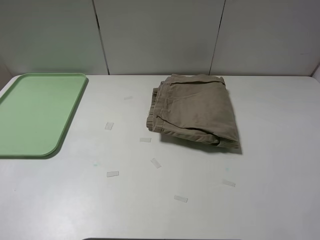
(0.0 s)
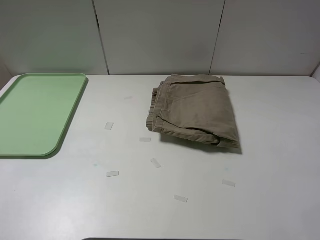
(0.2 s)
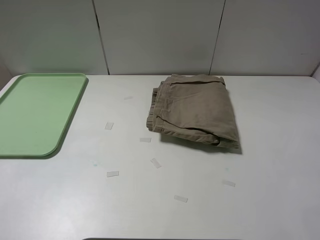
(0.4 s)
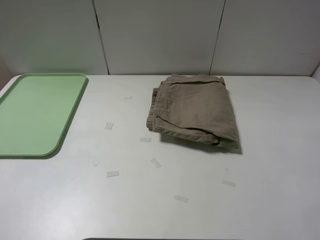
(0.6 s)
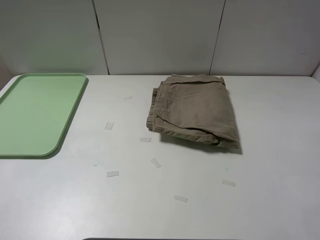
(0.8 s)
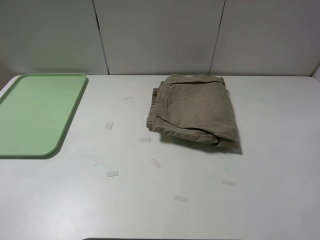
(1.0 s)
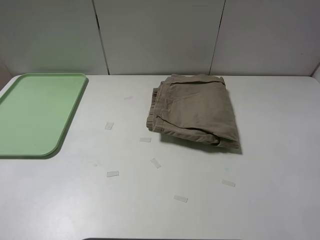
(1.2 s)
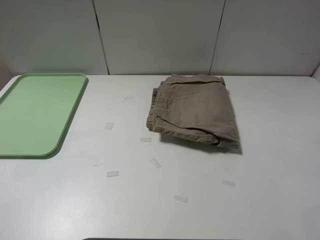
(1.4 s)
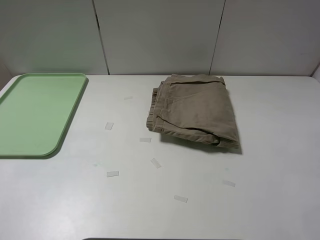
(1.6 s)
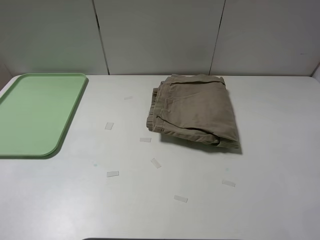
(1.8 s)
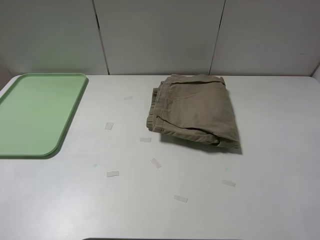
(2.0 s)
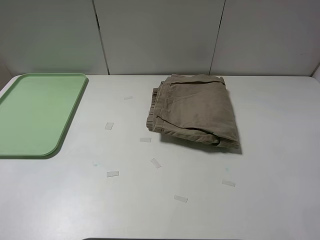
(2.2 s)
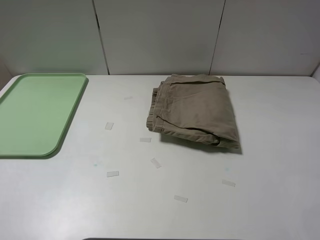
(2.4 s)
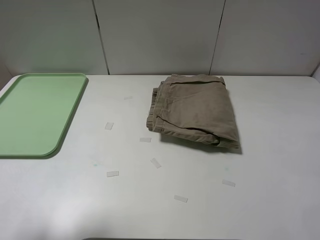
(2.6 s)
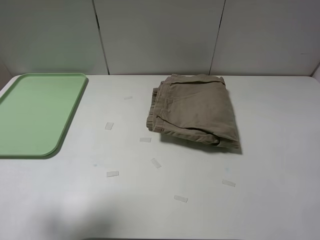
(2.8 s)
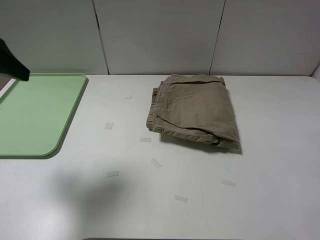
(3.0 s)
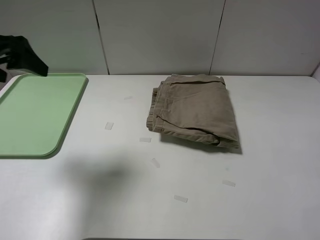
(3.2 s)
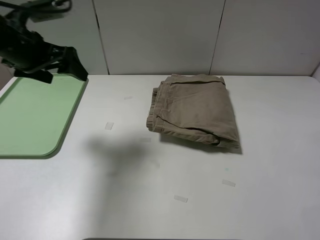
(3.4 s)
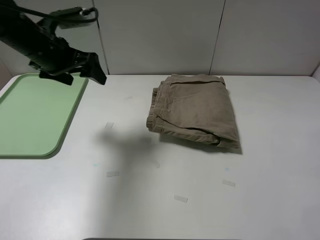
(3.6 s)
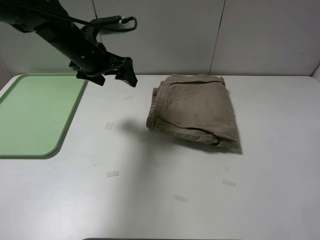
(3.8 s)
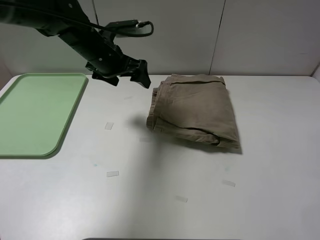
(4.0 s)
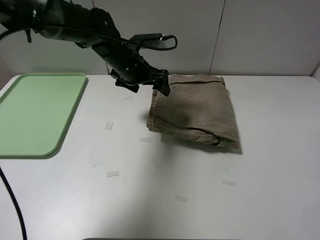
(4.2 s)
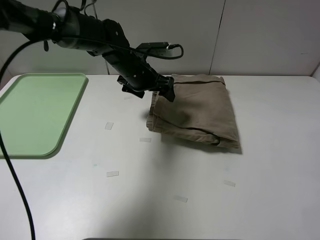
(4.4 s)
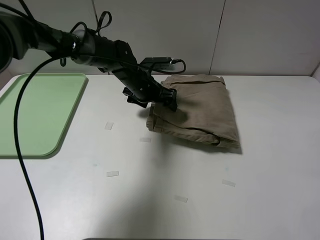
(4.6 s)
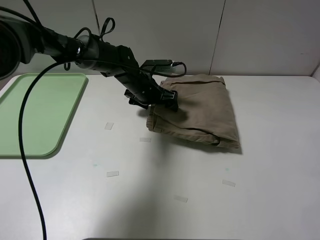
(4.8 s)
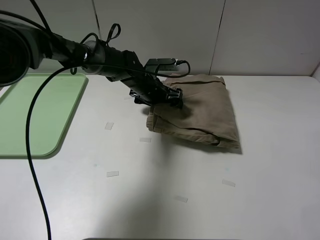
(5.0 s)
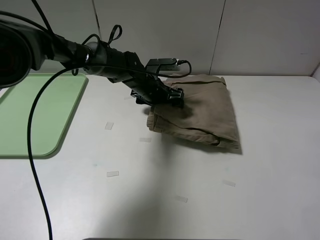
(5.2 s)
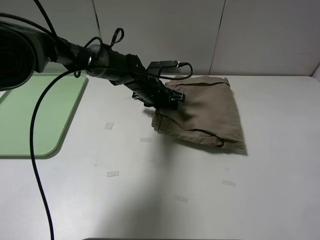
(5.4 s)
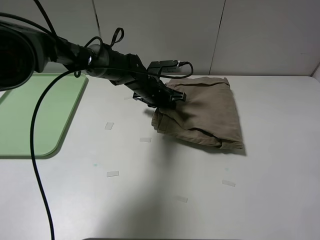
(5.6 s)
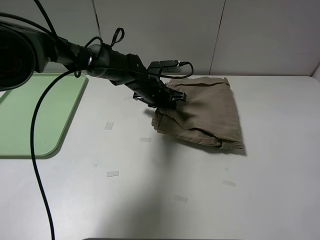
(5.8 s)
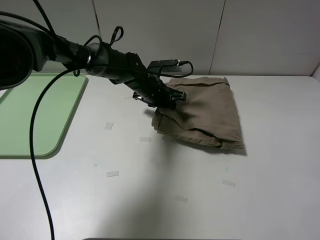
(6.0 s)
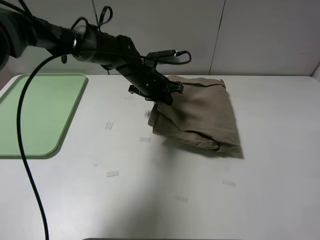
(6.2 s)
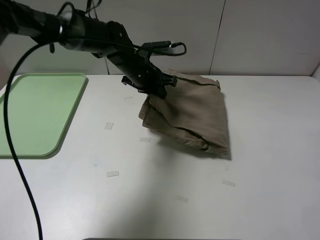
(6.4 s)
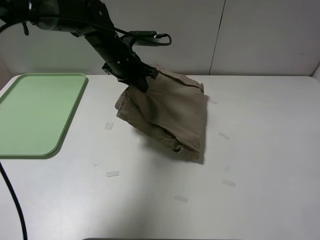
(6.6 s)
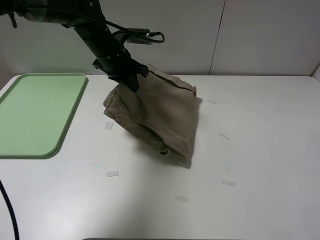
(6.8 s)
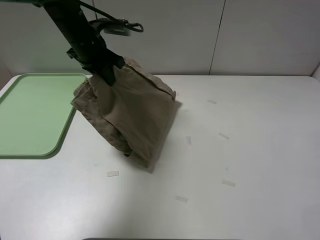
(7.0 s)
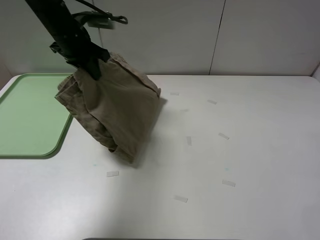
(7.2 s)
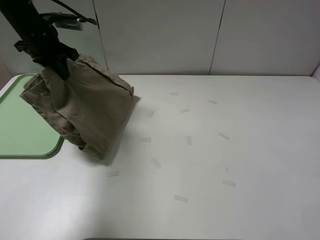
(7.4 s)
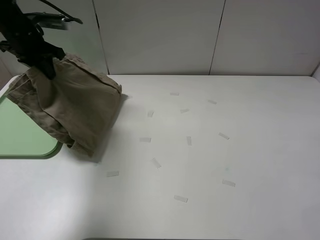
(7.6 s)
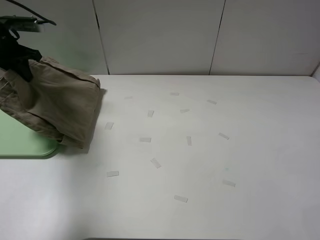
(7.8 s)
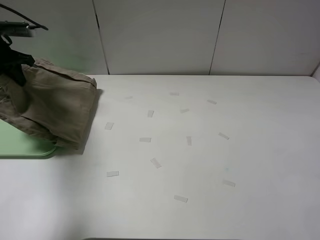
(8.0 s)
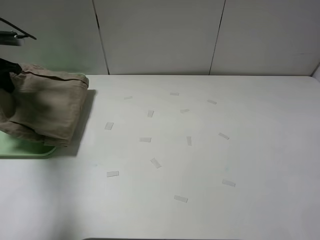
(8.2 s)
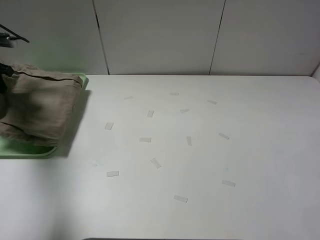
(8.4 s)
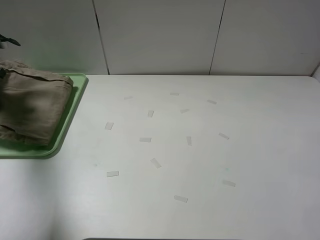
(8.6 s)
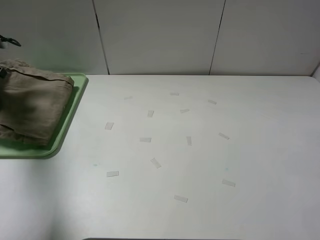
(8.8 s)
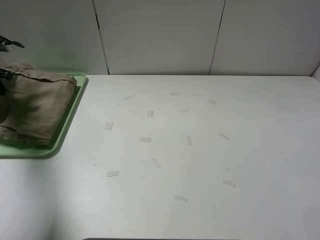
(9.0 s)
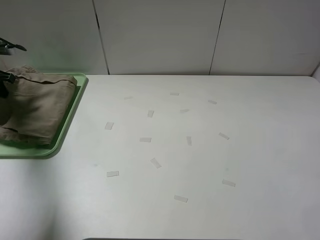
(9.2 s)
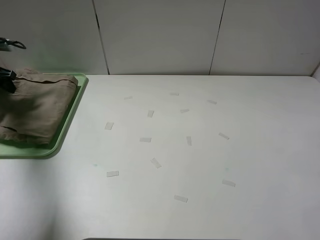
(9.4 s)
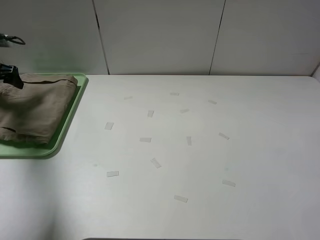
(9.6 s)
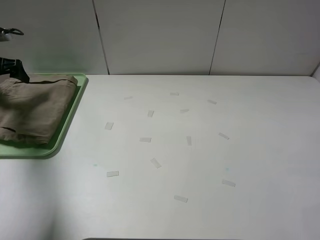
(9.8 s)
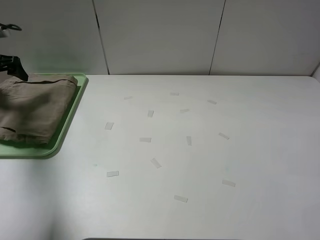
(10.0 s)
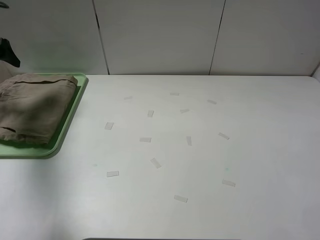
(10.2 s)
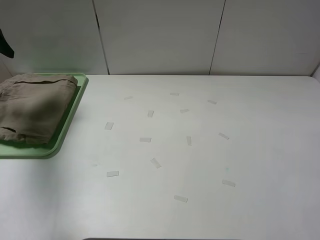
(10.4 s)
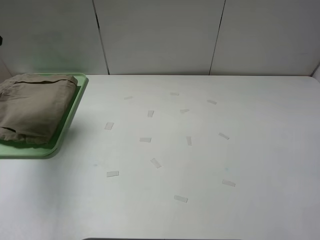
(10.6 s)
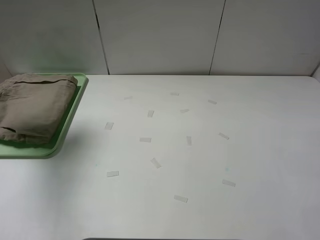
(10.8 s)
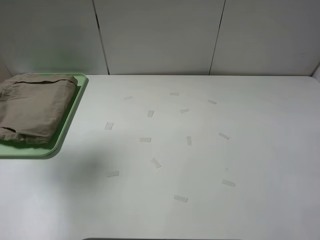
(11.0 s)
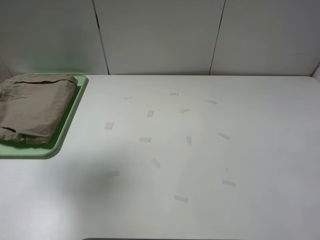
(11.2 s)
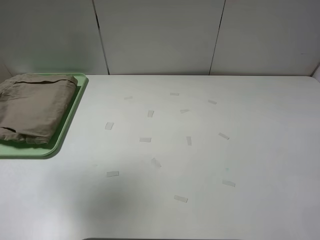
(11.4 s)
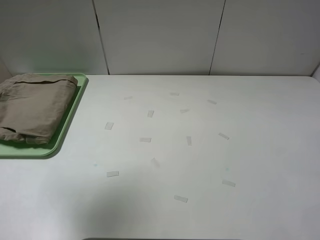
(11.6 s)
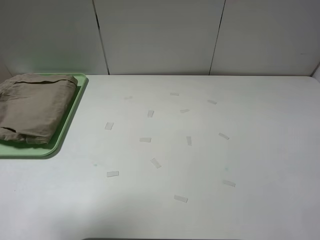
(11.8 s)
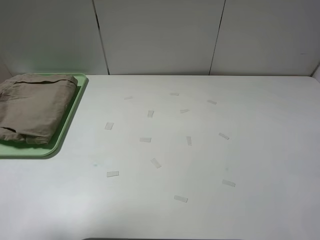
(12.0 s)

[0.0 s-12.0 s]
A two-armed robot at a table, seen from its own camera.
Task of the whole recording: fold the khaki jeans in half with two grippers, then fold them in half again, and use the left claw to place the folded fold khaki jeans on the tray.
Step, 0.0 to 5.6 s: Grasp the khaki trousers with the left gripper.
Step, 5.8 to 9.6 s: Place the folded khaki trousers on the green tray with the left gripper.
1.6 to 3.0 s: The left gripper shifts approximately 25 cm forward.
3.0 to 4.4 s: The left gripper heads to the right, forward and downward, covering some 35 cm.
4.4 to 6.0 s: The left gripper shifts by approximately 5 cm, and closes its fingers.
6.0 to 7.6 s: The left gripper travels to the left and upward by about 30 cm.
7.6 to 9.0 s: The left gripper goes approximately 15 cm to the left and downward.
9.0 to 10.4 s: The left gripper goes about 10 cm upward, and opens its fingers.
10.4 to 12.0 s: The left gripper goes roughly 30 cm backward and to the right.

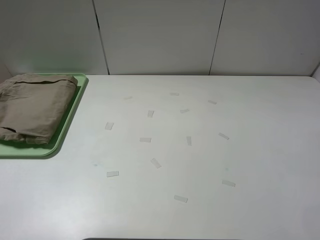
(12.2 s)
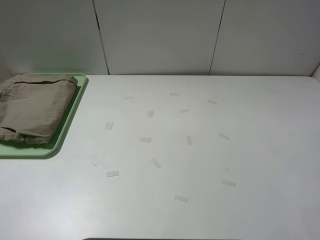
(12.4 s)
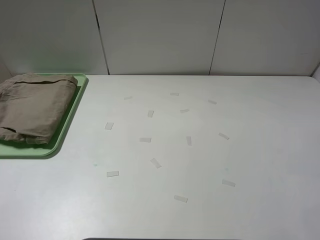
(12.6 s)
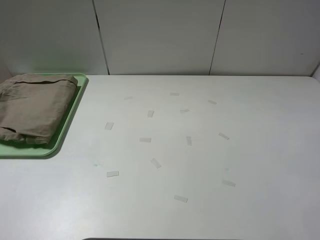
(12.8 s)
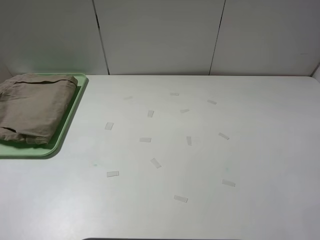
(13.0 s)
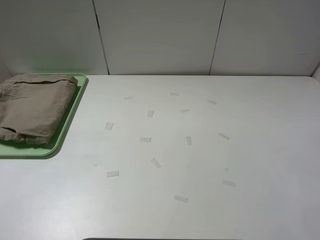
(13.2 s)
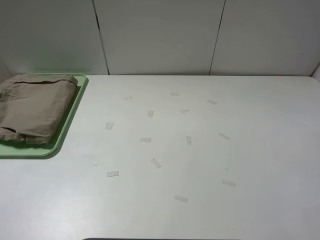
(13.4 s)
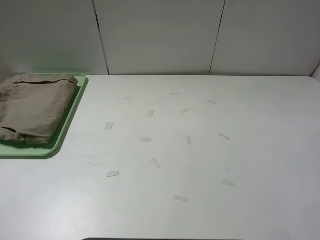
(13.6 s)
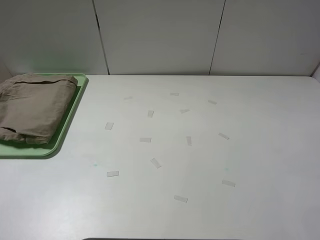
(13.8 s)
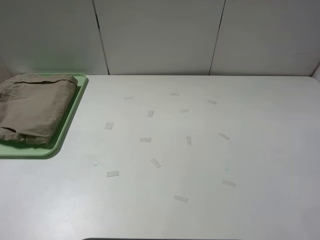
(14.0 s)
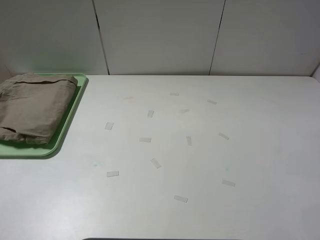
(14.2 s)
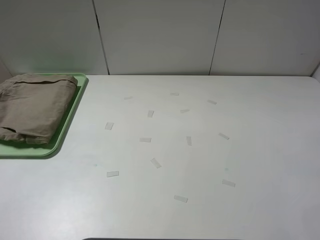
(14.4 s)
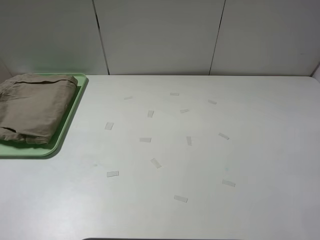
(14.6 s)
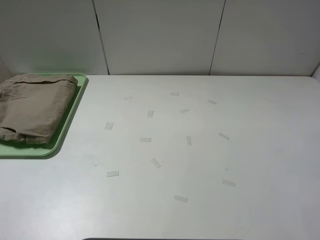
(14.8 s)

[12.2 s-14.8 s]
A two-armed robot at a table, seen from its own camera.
Task of the whole recording: fold the khaki jeans in half with two grippers, then fold them in half again, and use the left claw to place the folded fold khaki jeans on the tray.
13.4 to 14.8 s: Both grippers stay put.
